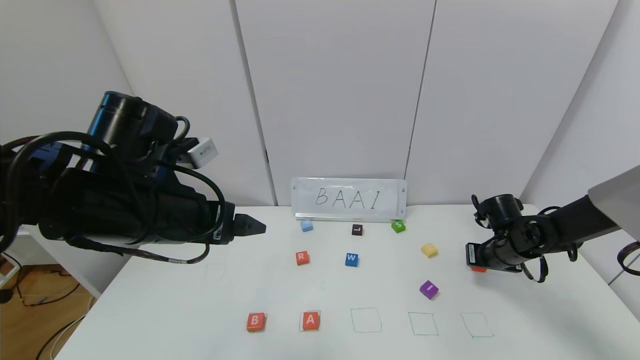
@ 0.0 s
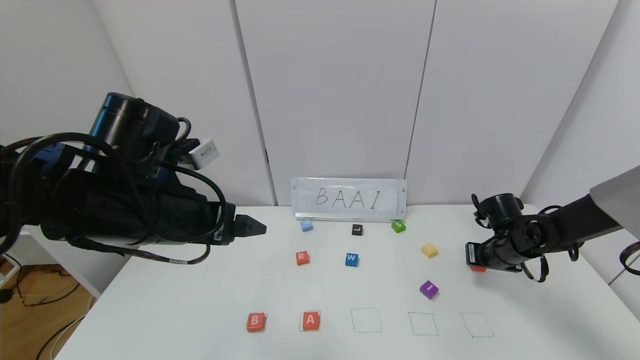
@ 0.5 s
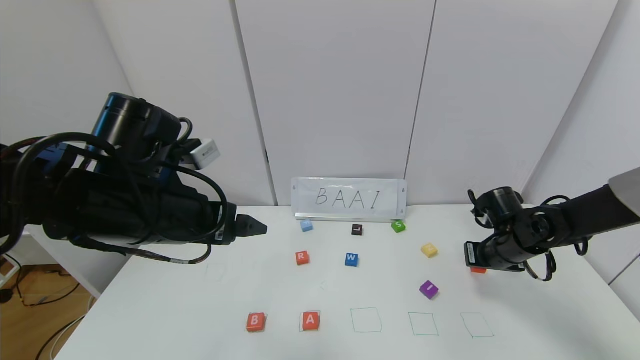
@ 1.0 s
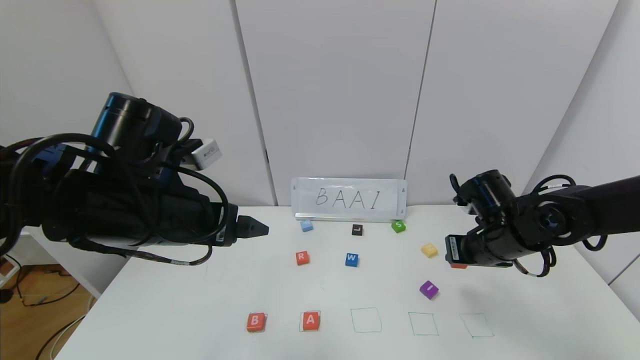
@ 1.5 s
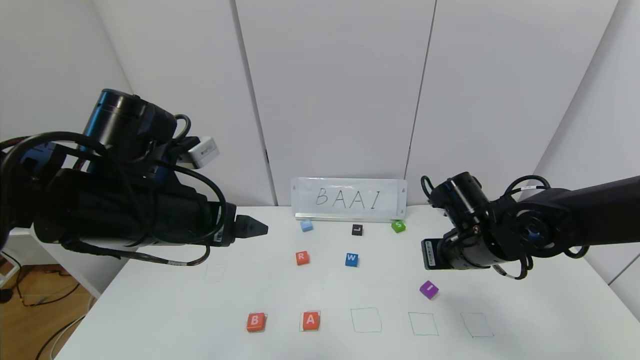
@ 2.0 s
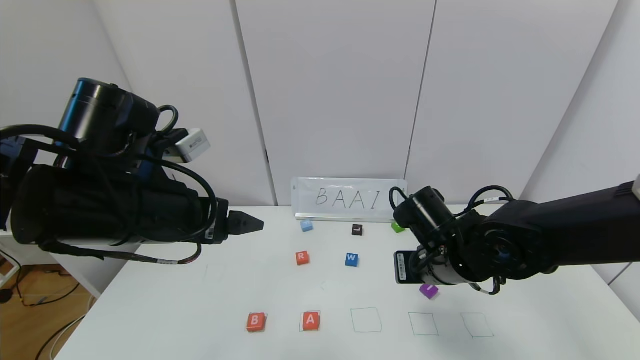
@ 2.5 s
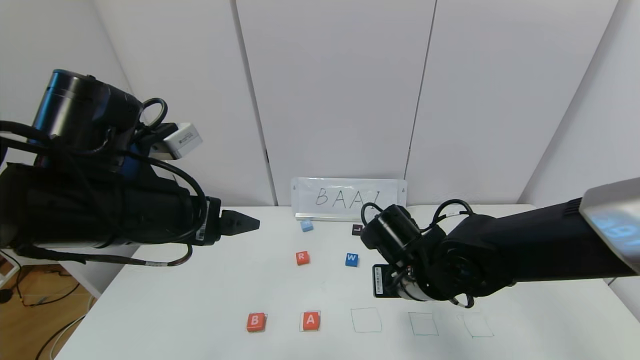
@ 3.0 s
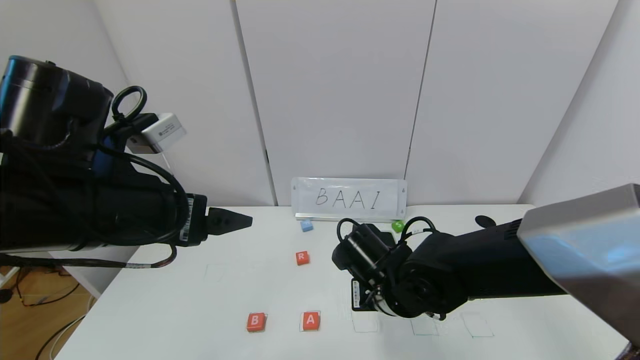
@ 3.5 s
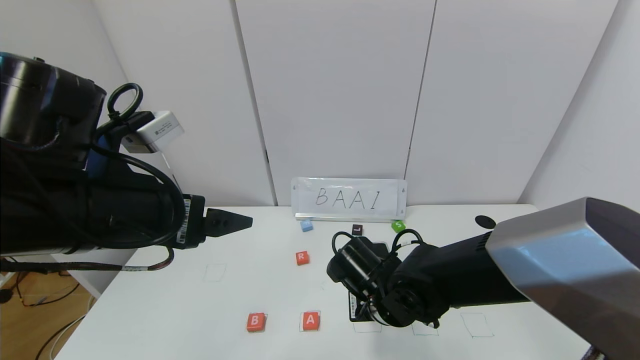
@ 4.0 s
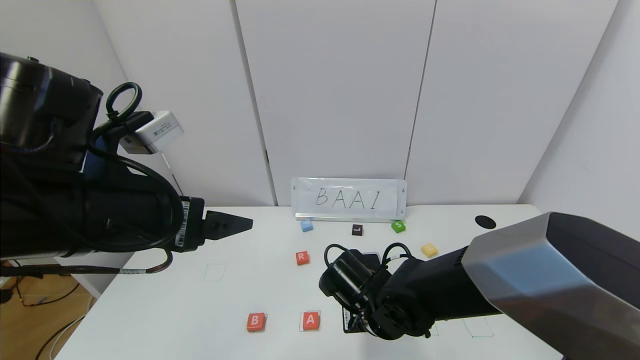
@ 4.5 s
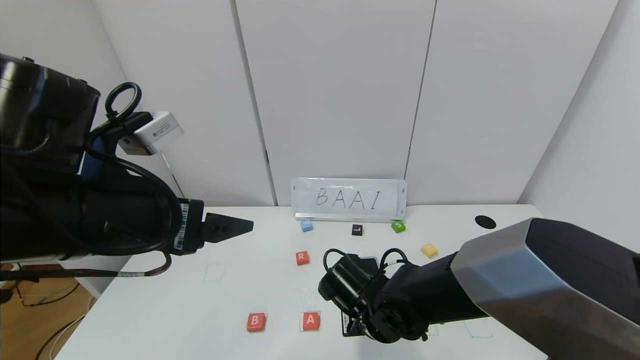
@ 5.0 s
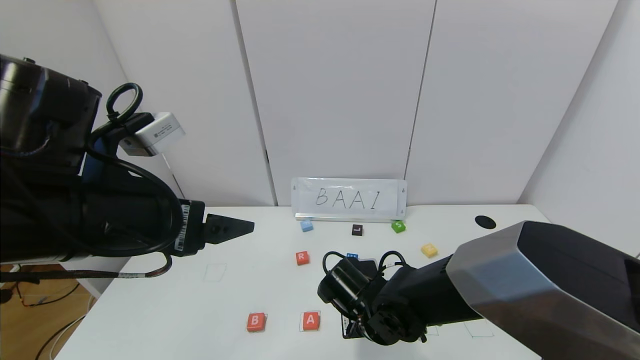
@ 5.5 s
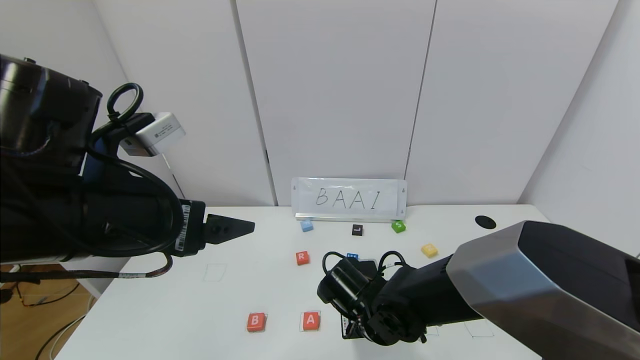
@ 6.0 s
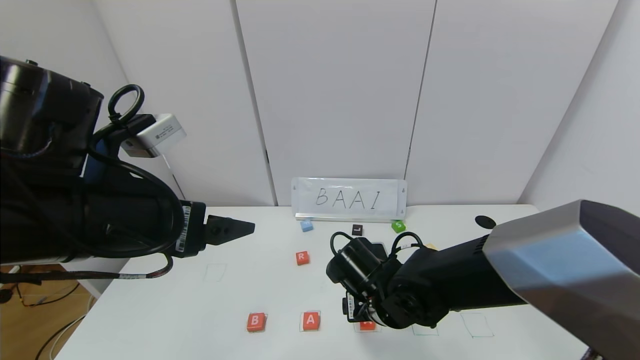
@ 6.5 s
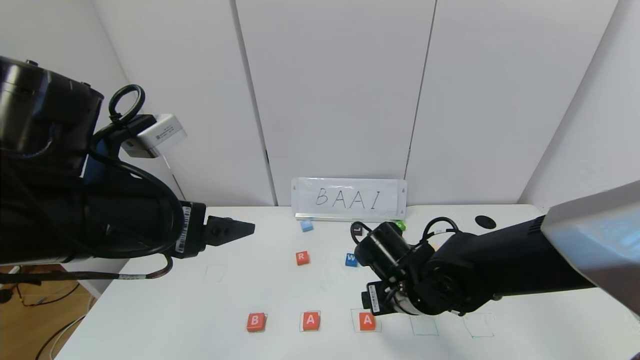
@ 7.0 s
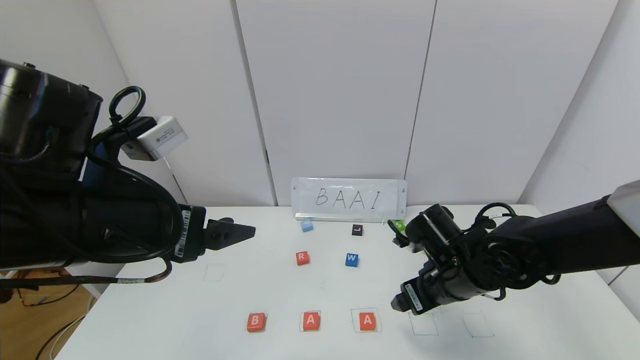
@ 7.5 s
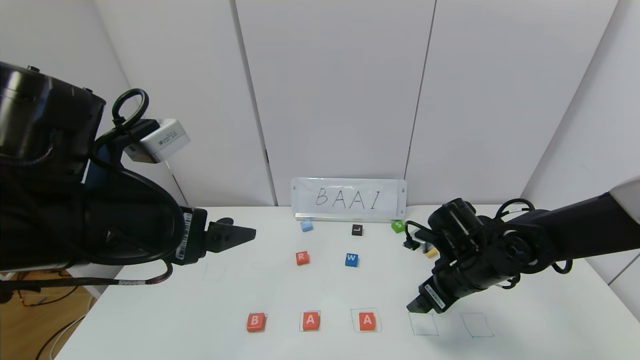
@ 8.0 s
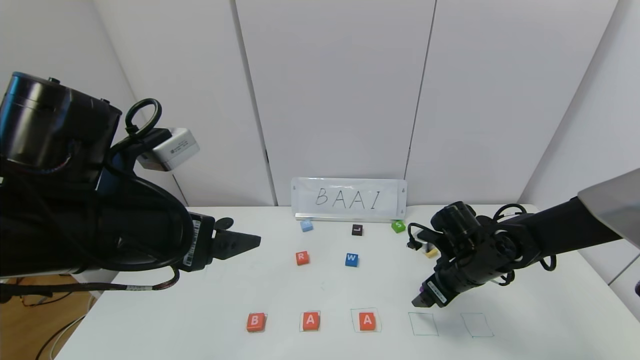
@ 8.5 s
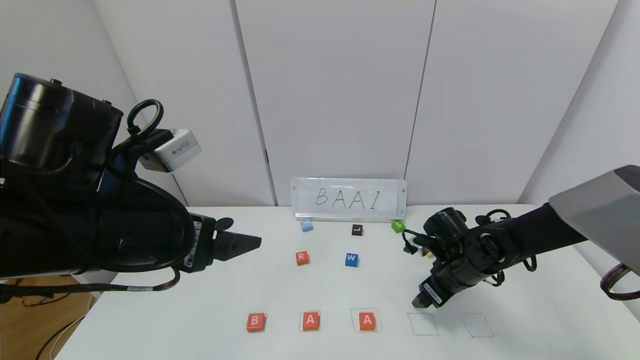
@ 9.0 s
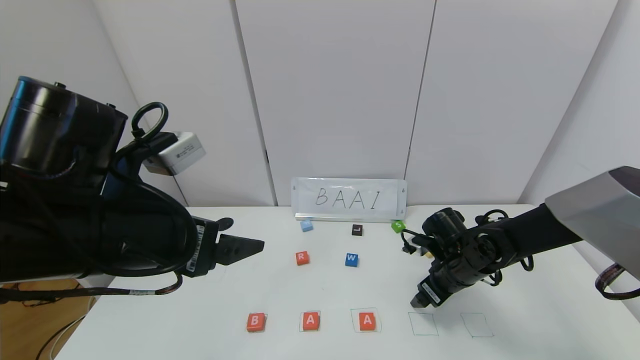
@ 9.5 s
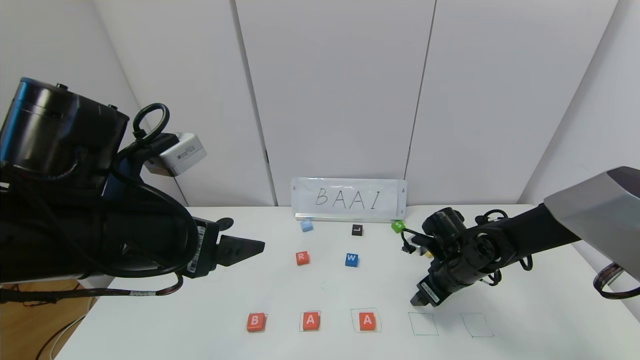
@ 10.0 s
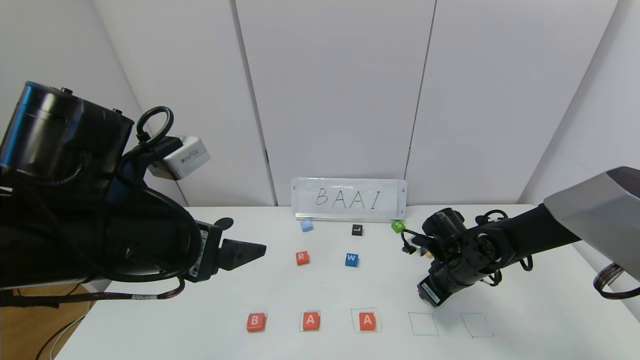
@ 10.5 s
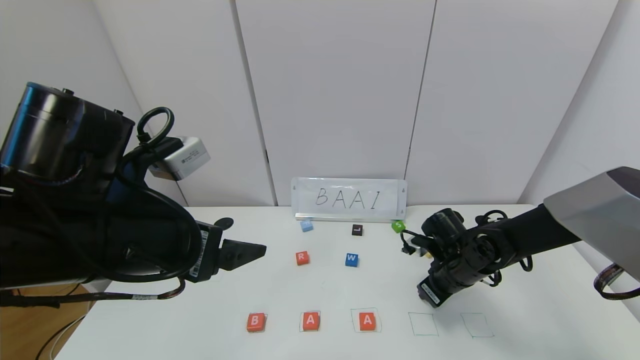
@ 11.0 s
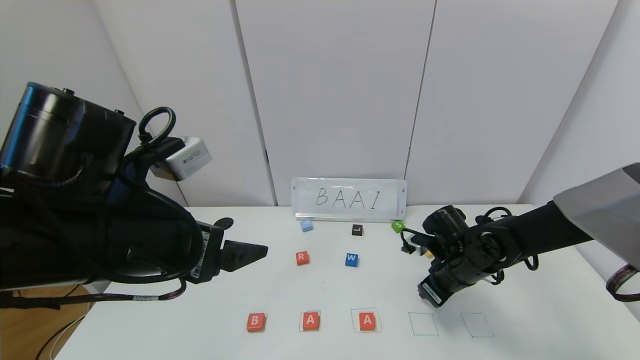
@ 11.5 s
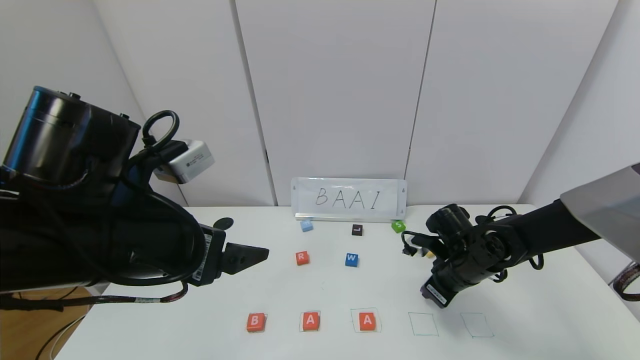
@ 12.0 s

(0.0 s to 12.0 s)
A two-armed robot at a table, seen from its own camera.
Task of the whole recording: use the gripper to find blocks with the letters b, a, a, and i on the table and arrange them into BAAI, then find r and N and turn the arranged baai into brian.
Step, 0.0 s - 6.0 s: Place the second block A in the third location.
0.0 s - 2.0 s: The right gripper is displaced to the left, upward and backward by approximately 20 cm.
2.0 s - 4.0 s: The right gripper heads to the left and downward, covering about 15 cm.
4.0 s - 6.0 s: The right gripper opens.
6.0 s - 8.0 s: The right gripper shifts approximately 15 cm to the right, and opens.
8.0 s - 10.0 s: The right gripper changes place by about 5 cm.
10.0 s - 12.0 s: The right gripper closes.

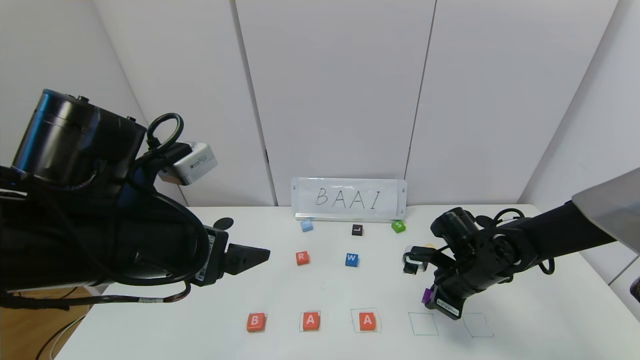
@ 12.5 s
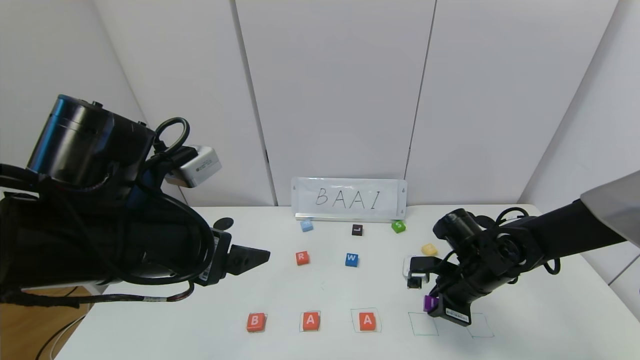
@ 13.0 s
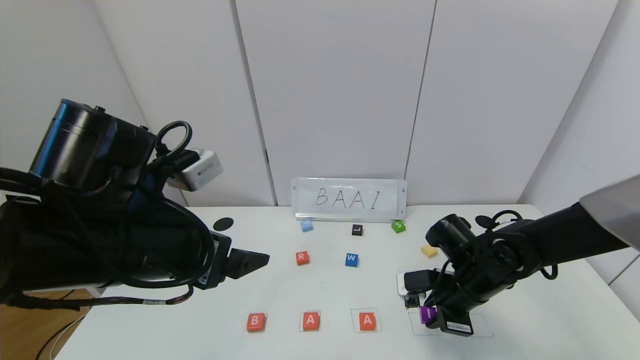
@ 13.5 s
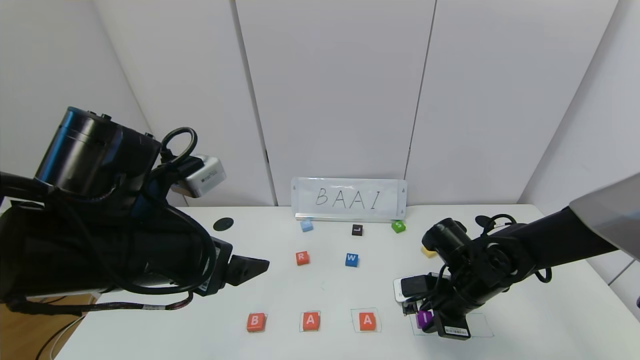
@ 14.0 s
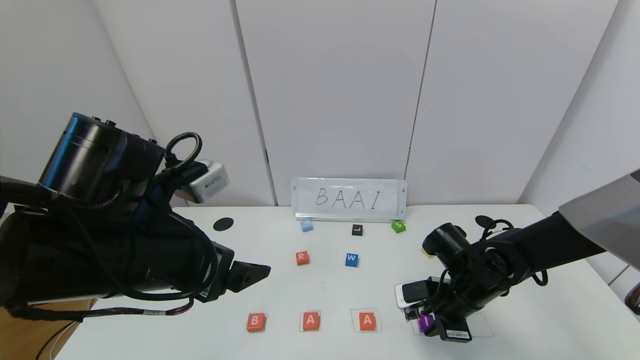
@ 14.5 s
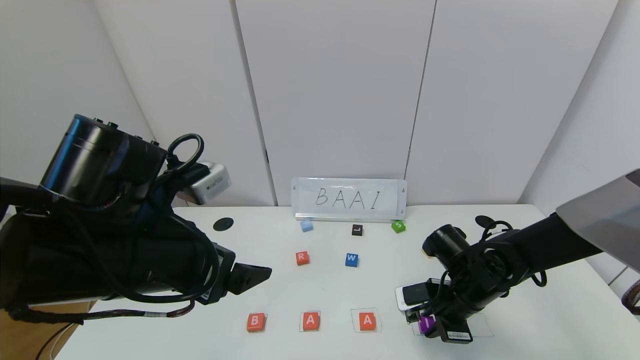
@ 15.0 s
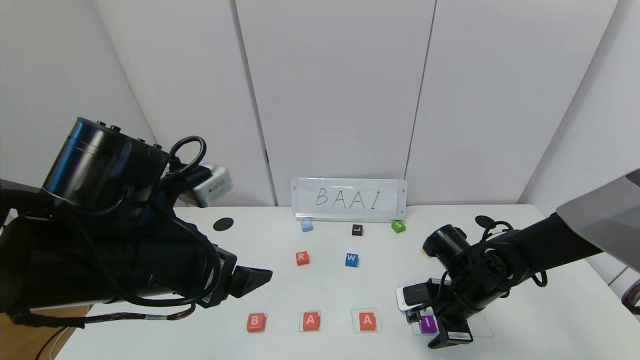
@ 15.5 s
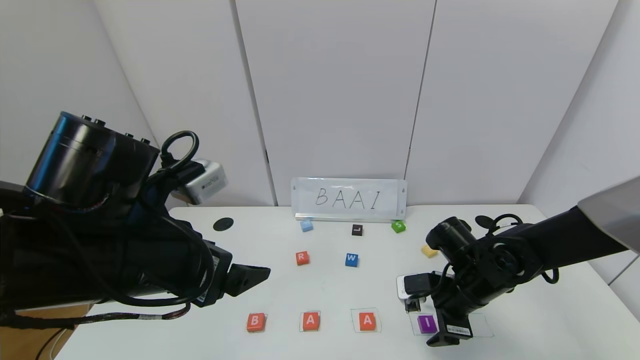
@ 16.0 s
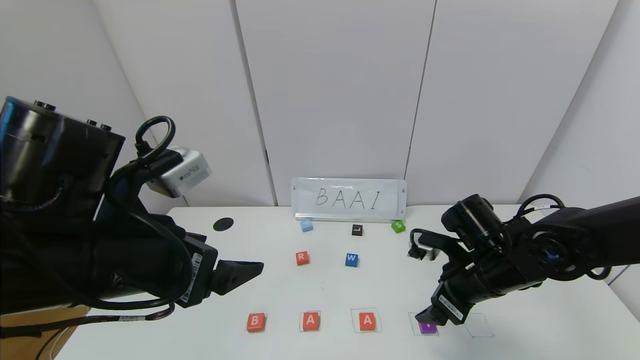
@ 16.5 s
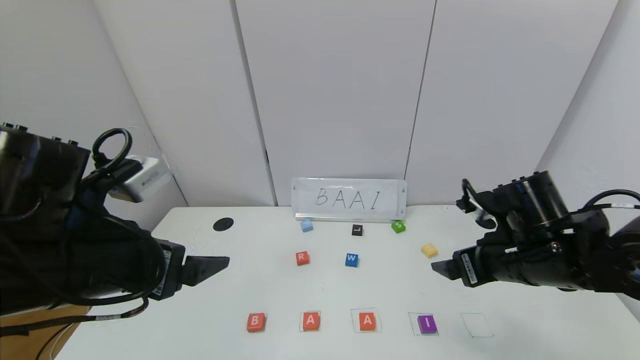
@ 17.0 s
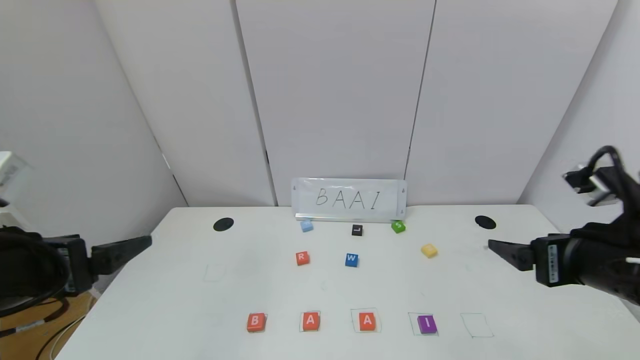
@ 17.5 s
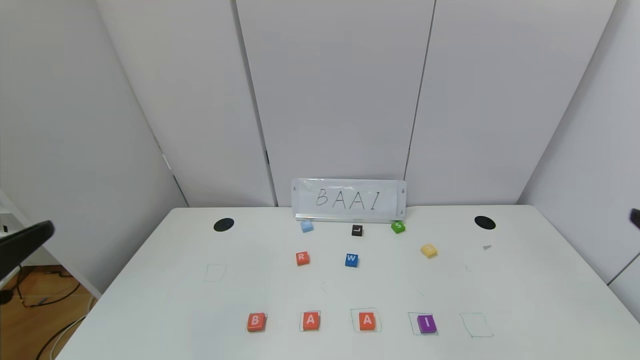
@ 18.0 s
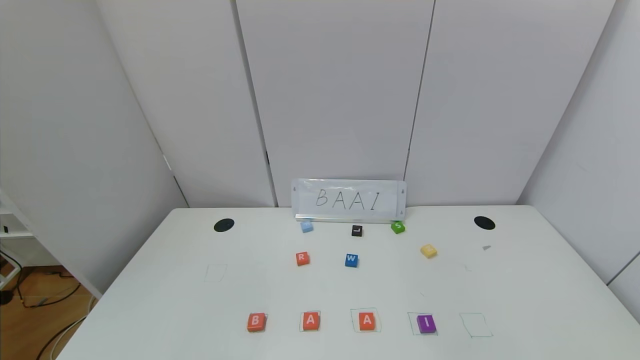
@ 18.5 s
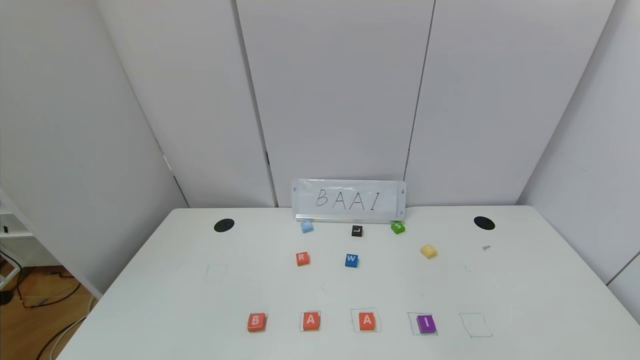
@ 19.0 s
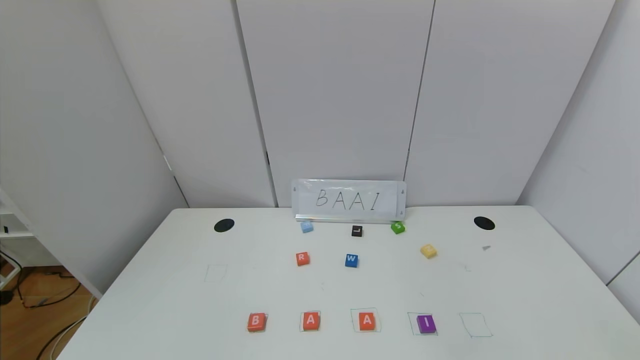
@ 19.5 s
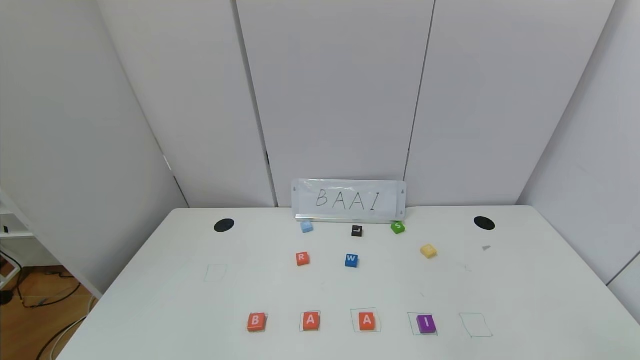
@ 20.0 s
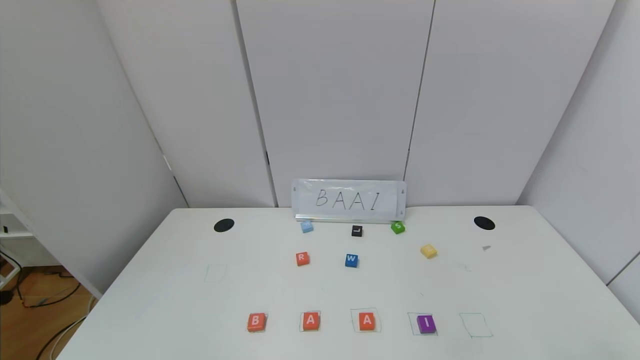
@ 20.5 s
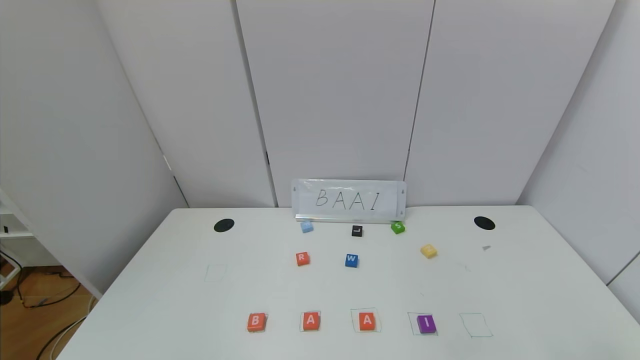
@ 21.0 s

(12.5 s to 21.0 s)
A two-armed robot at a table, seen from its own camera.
Task of the whole recording: use the gripper to find blocks with the letters b, a, a, and i on the table and arrange them into BAAI, then find r and N and turn the arranged baai into brian.
Step, 12.5 s - 15.5 s: Place the block I in the fourth location.
14.5 s - 16.5 s: The right gripper travels upward by approximately 5 cm, and opens.
16.5 s - 19.0 s: The right gripper is displaced backward, upward and to the right by roughly 40 cm, while the left gripper moves backward and to the left, roughly 25 cm.
